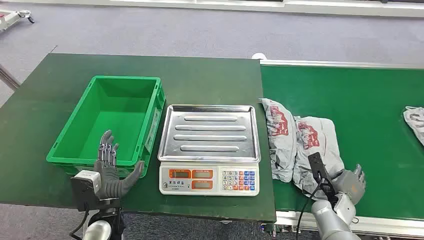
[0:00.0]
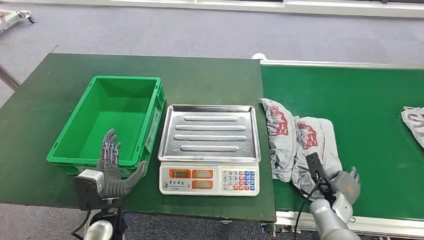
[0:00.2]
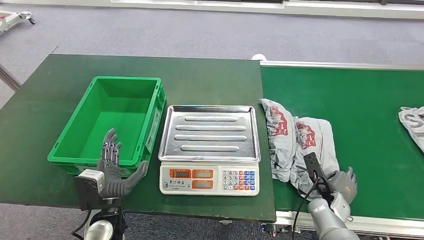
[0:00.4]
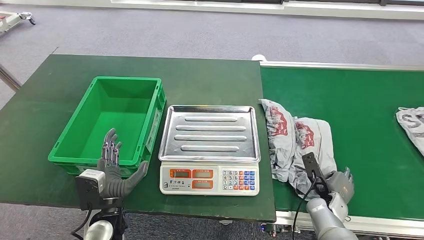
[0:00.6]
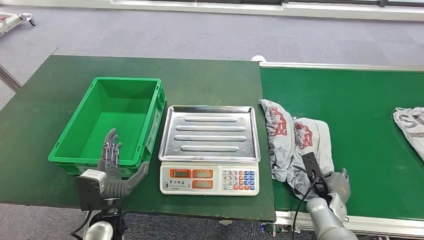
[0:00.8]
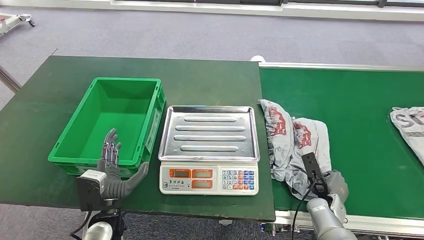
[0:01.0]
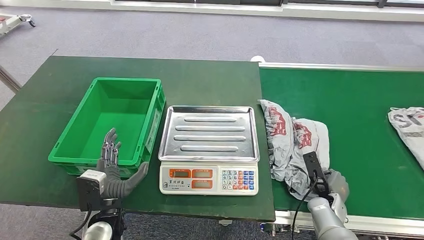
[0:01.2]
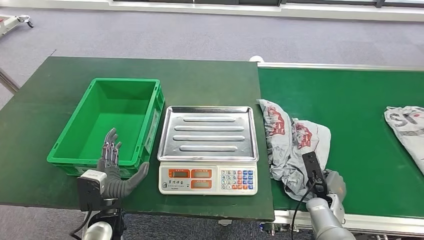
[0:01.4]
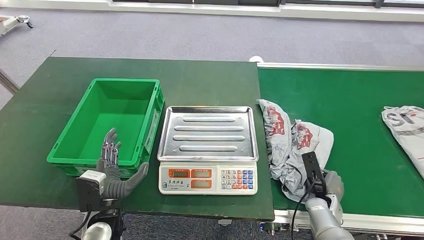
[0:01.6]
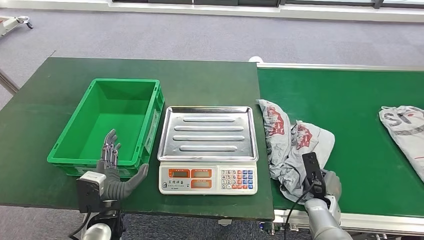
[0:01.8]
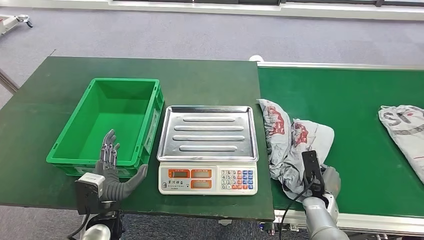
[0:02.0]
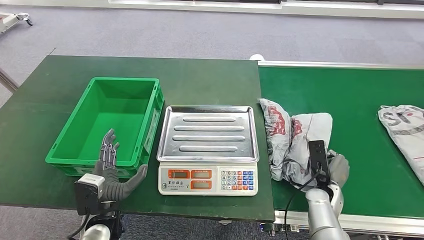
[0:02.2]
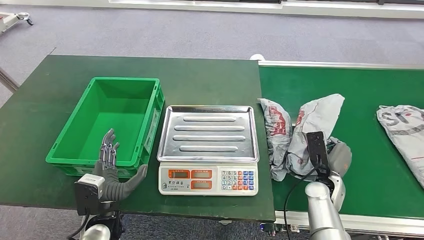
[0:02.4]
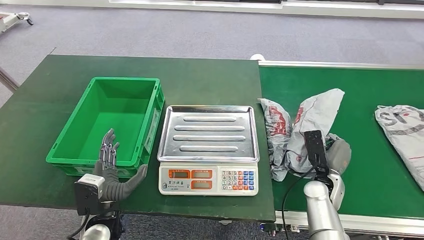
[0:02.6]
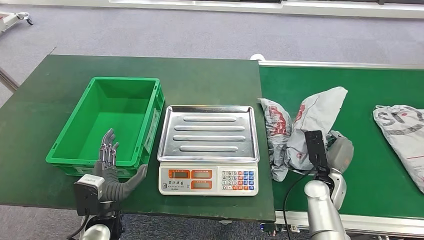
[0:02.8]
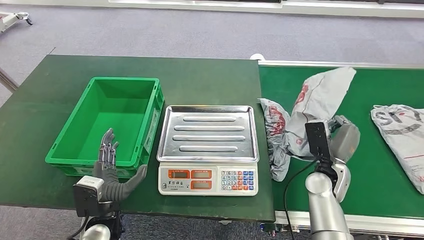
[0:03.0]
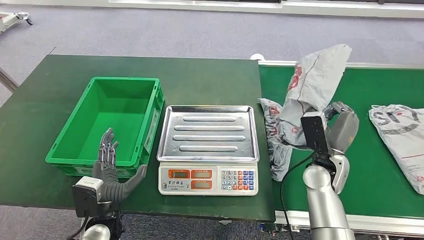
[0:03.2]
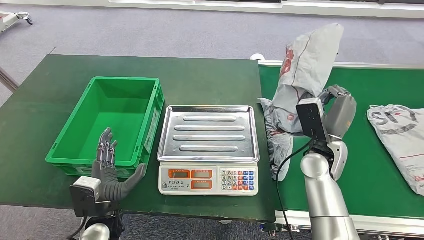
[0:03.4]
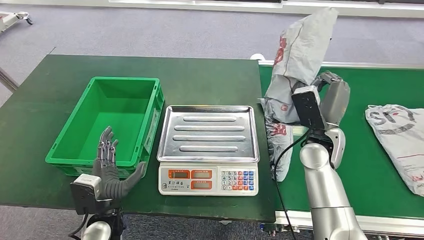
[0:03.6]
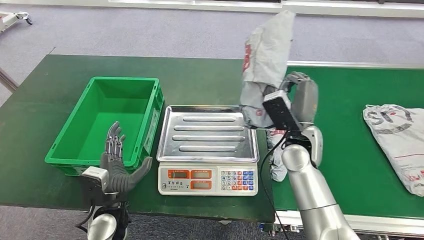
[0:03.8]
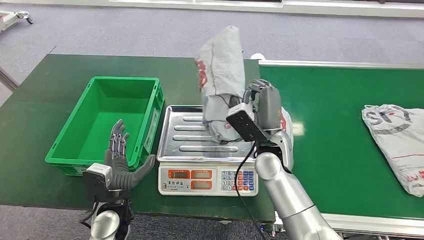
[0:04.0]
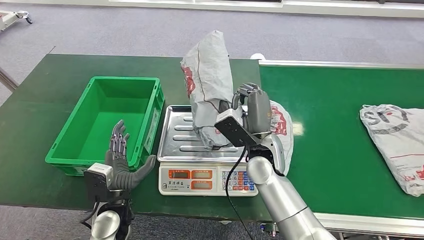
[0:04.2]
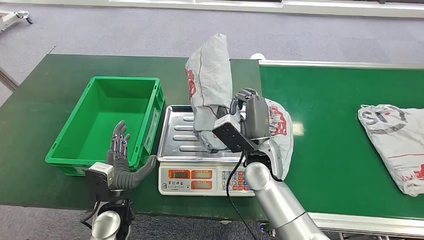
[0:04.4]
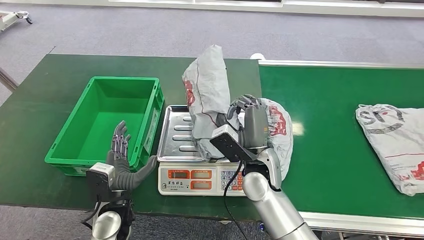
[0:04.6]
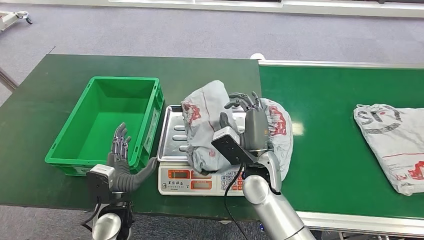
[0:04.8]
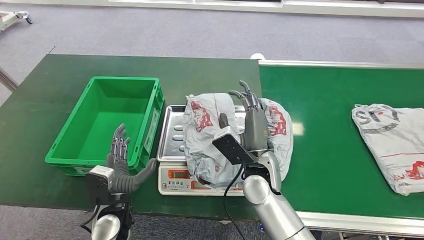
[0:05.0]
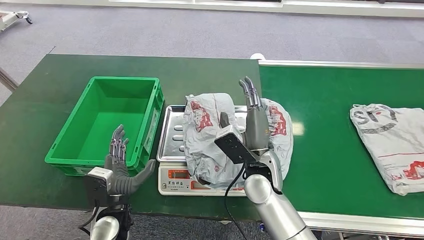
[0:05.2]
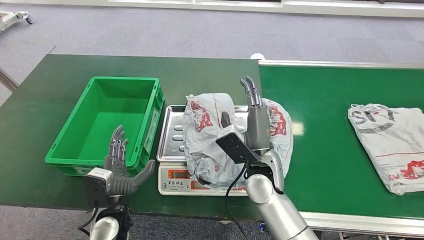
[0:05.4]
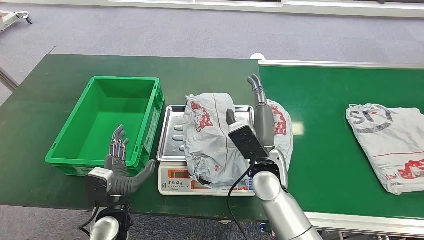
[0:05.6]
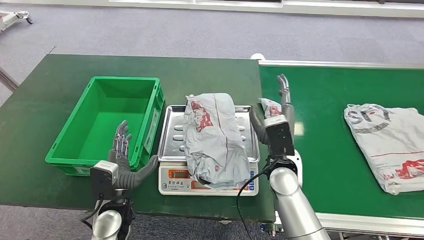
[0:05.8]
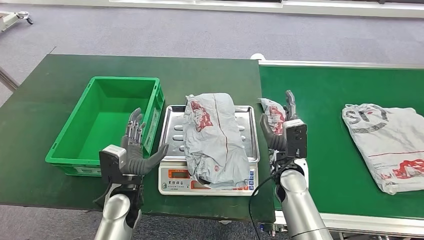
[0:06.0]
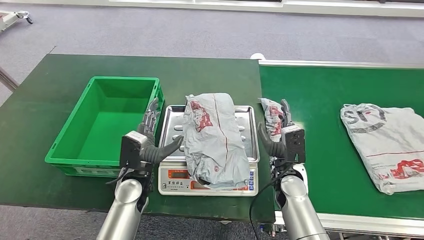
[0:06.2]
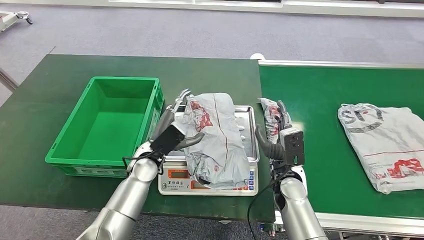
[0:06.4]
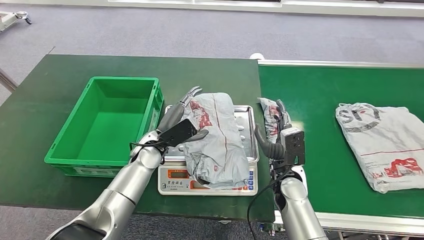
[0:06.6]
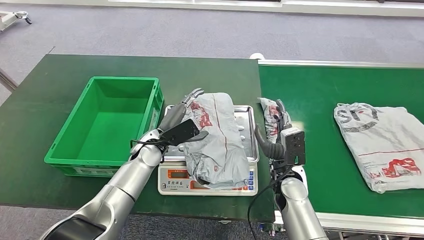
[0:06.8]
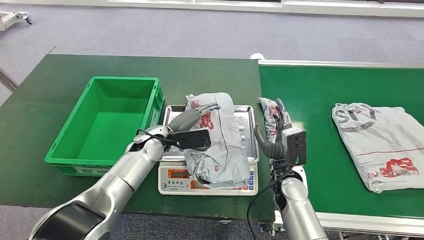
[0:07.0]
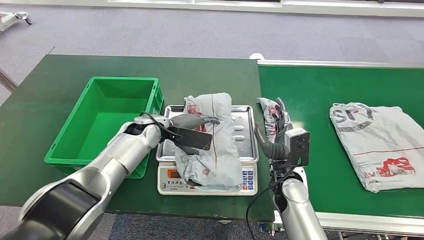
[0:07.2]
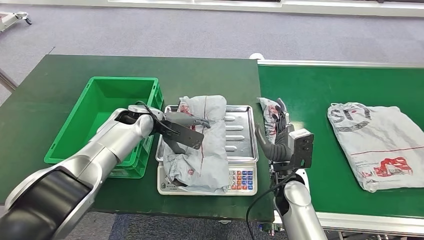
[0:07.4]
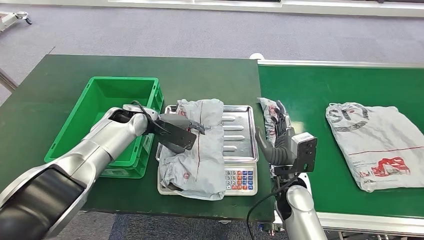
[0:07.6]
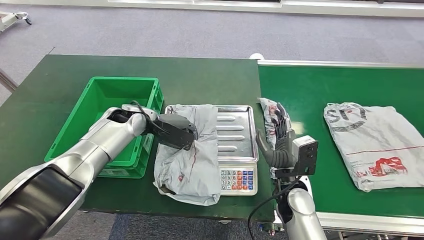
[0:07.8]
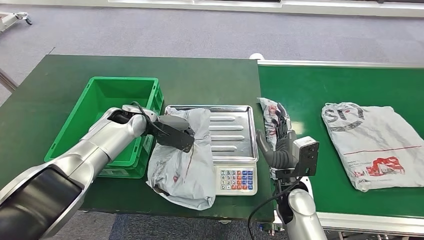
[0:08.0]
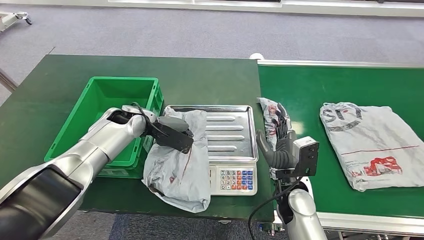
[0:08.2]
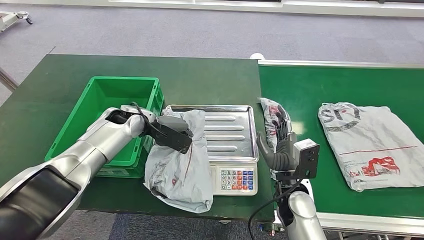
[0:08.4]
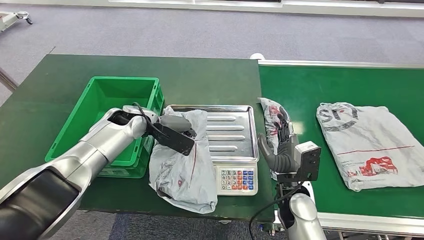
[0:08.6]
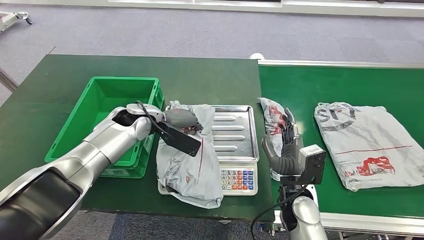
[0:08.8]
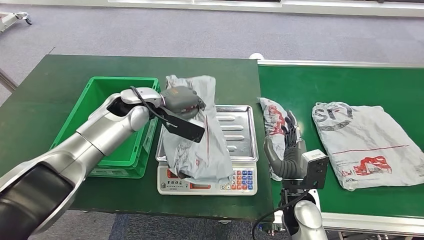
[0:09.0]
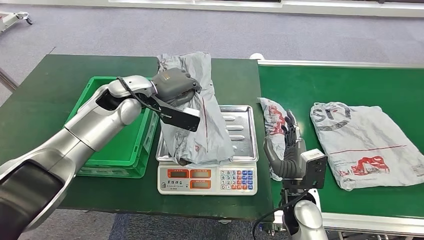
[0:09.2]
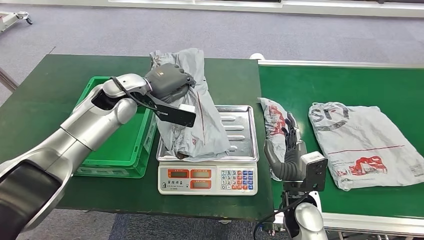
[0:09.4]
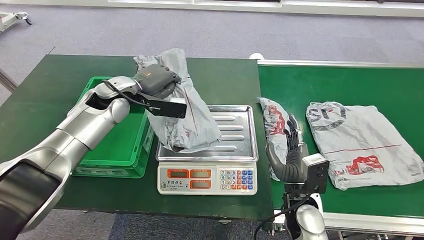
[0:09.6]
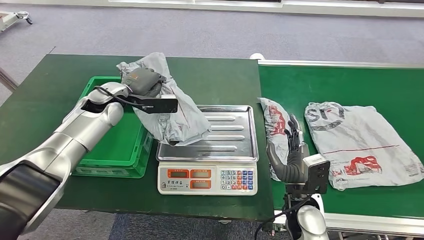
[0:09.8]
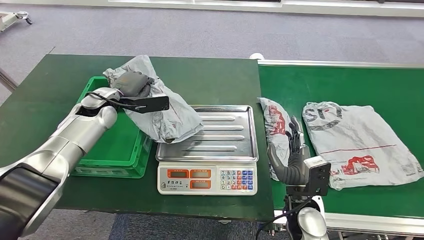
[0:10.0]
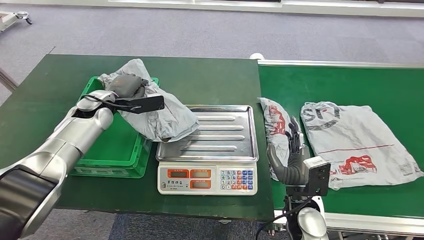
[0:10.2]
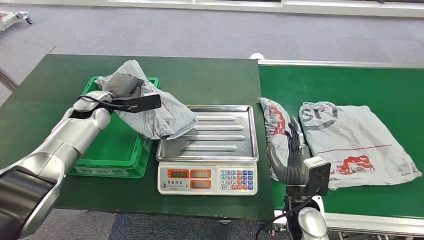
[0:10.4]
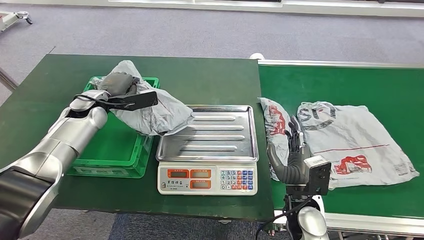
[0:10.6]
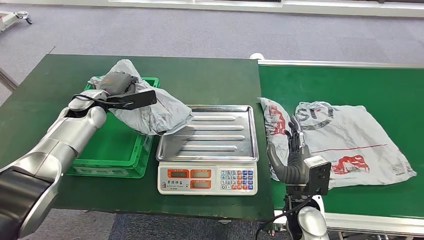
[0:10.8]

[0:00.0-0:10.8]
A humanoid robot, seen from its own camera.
Step, 0:00.0 to 0:03.0: Pick up the package from the conveyor belt.
Step, 0:03.2 to 0:05.2: Place the package onto the inbound machine.
Step, 0:05.4 to 0:09.4: Pick up the package from the inbound machine.
Step, 0:09.6 to 0:10.8: Place the package into the parcel locker.

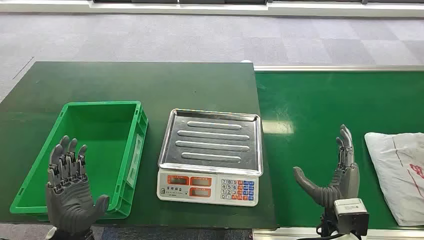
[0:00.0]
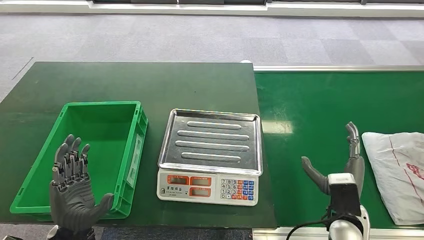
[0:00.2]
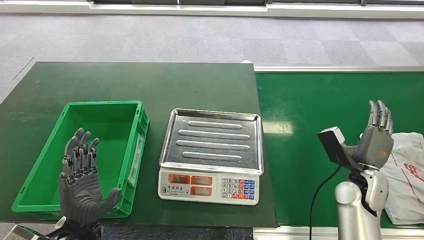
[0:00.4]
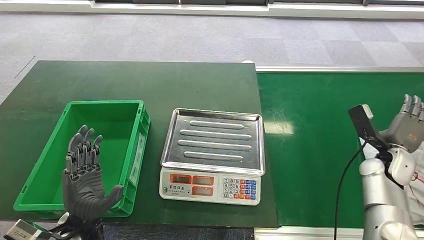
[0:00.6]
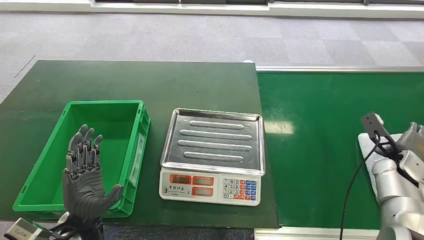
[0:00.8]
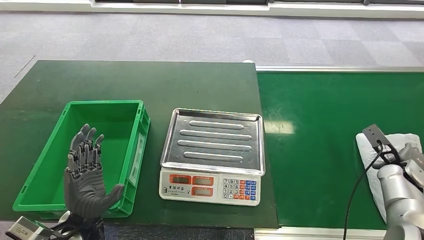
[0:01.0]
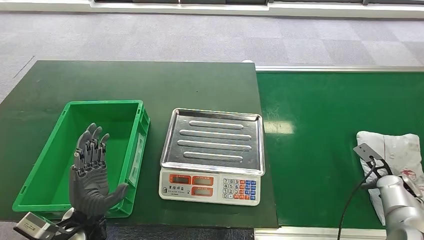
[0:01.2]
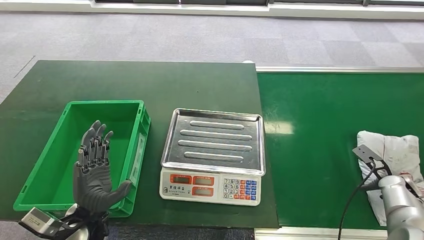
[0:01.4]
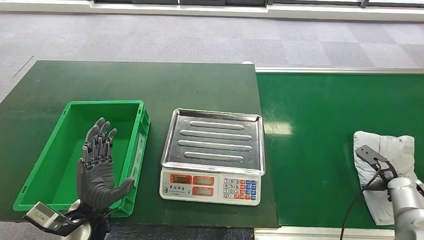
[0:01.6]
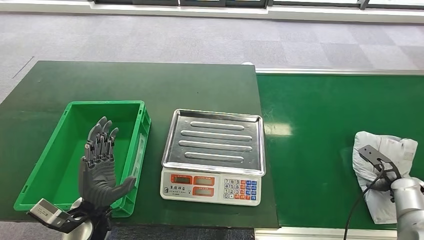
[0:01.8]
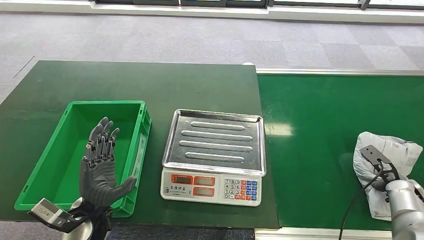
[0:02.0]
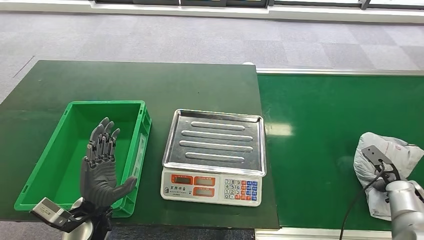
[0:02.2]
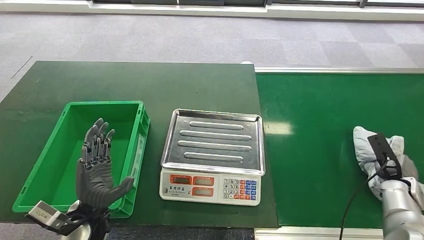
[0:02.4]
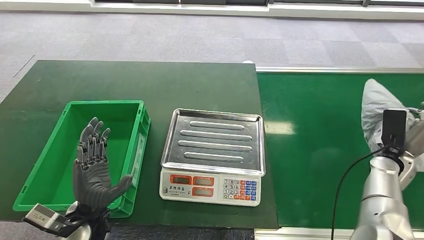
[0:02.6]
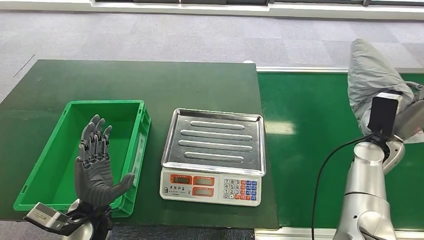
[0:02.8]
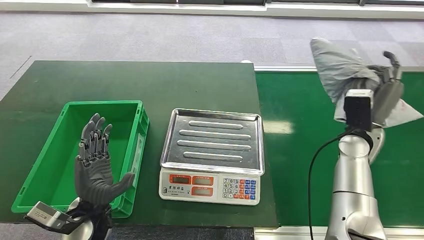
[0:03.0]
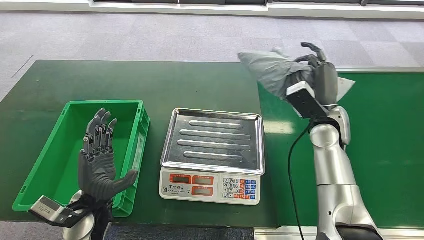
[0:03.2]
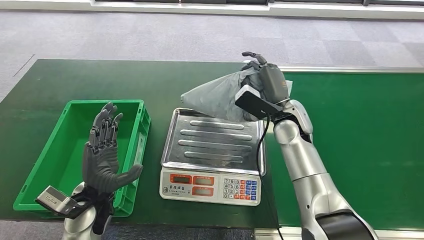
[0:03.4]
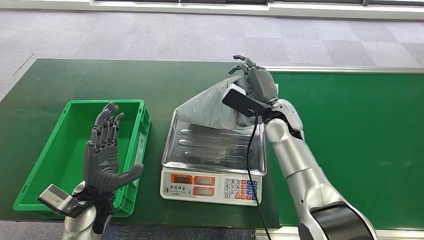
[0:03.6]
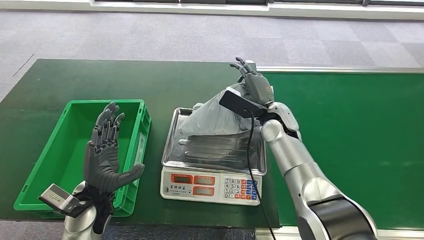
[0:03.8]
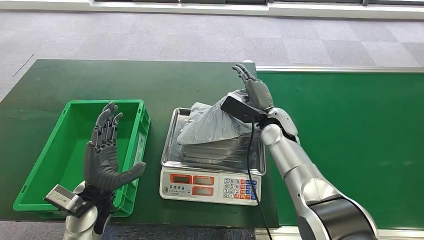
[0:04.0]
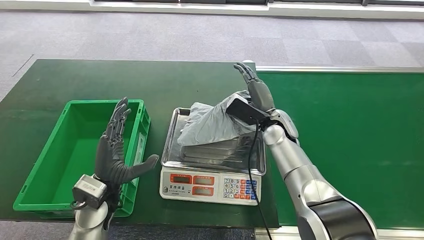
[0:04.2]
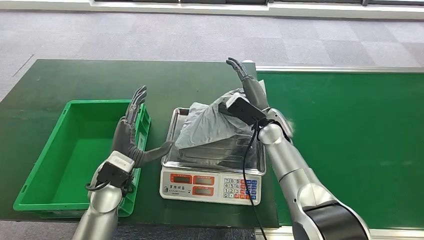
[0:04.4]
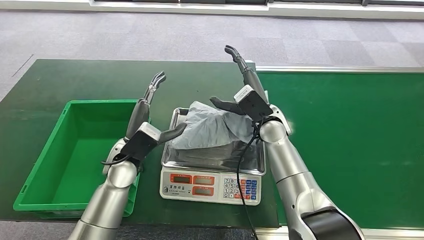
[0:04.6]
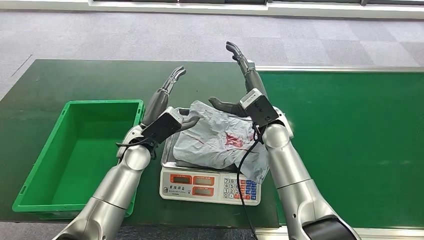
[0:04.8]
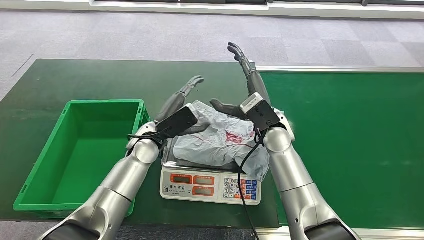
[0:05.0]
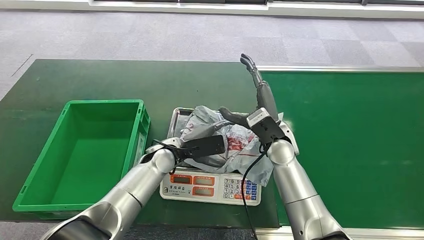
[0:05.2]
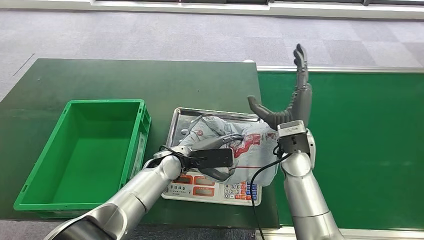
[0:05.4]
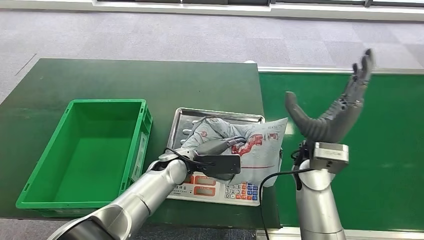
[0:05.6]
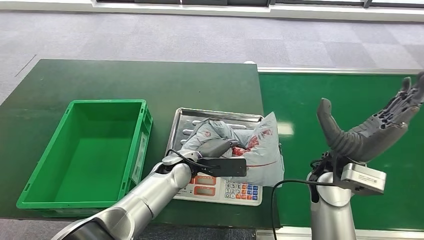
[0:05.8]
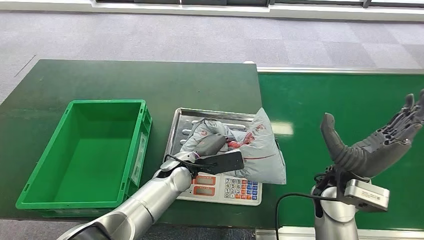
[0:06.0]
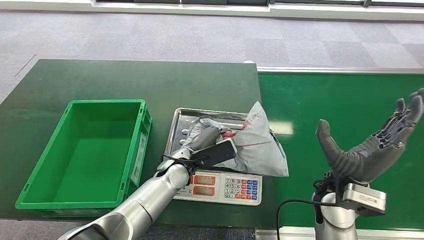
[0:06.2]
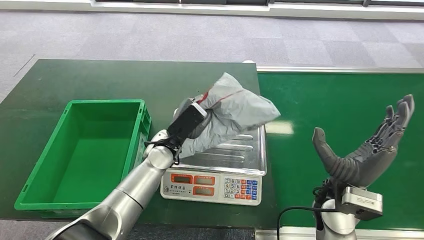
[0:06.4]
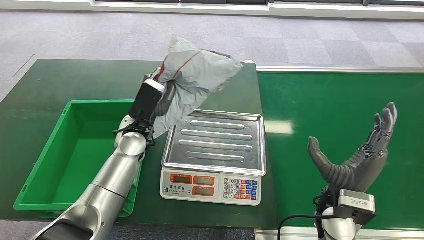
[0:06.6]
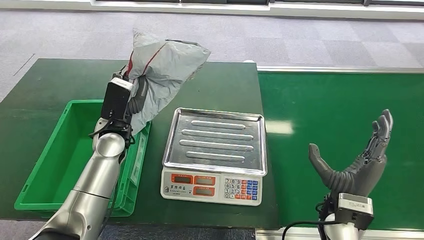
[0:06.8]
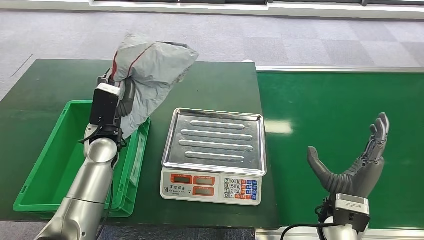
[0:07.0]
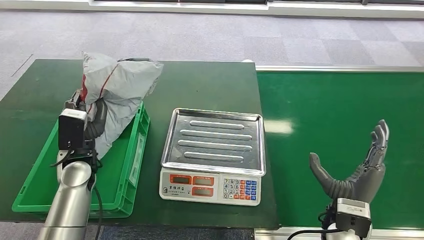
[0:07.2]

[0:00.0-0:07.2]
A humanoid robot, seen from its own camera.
Step, 0:00.0 to 0:02.8: Pick up the package from the conveyor belt.
Step, 0:03.2 to 0:05.2: Place the package onto the inbound machine.
Step, 0:05.4 to 0:06.8: Pick up the package from the inbound machine.
Step, 0:07.0 to 0:07.2: Place the package into the parcel locker.
0:01.4 to 0:02.8: The right hand goes some 20 cm to the left, upward and forward.
